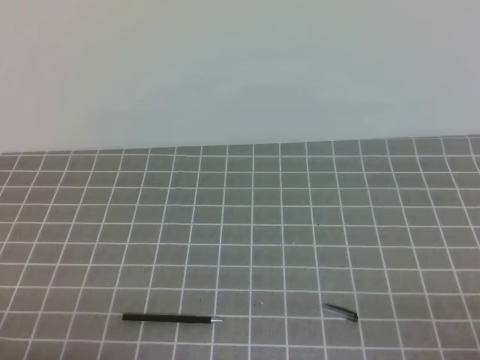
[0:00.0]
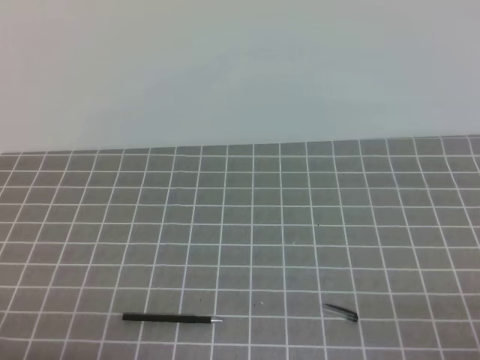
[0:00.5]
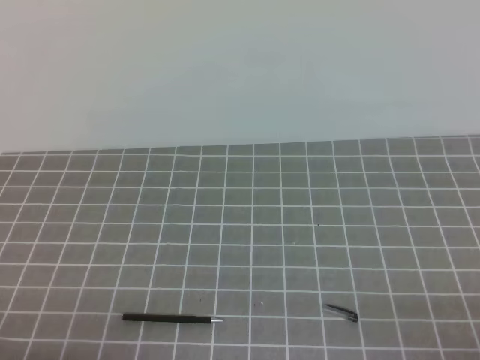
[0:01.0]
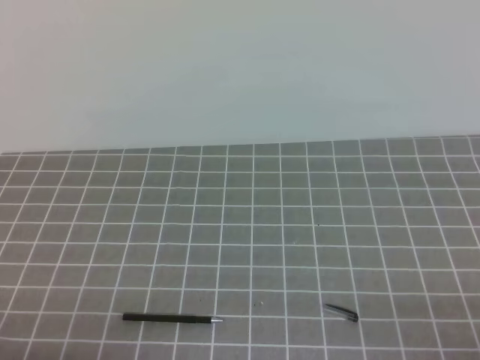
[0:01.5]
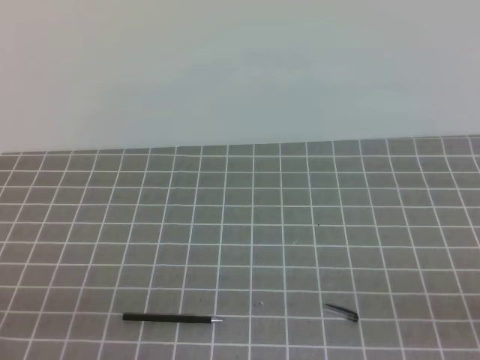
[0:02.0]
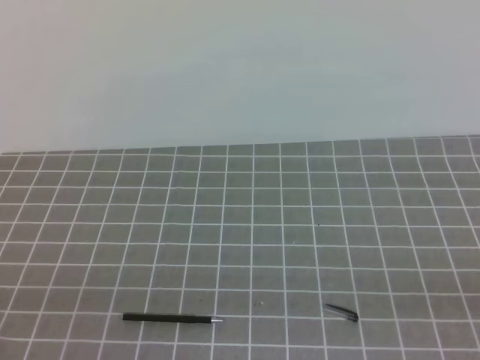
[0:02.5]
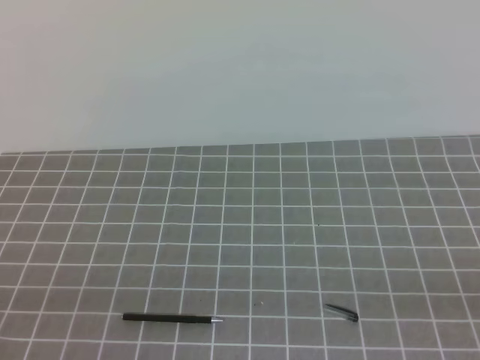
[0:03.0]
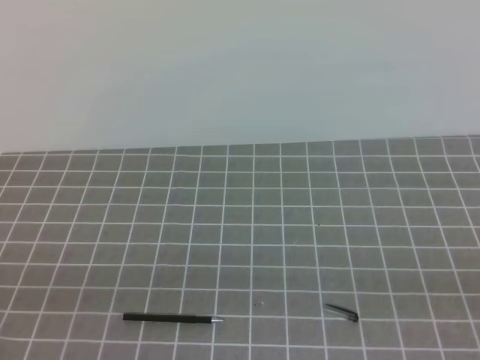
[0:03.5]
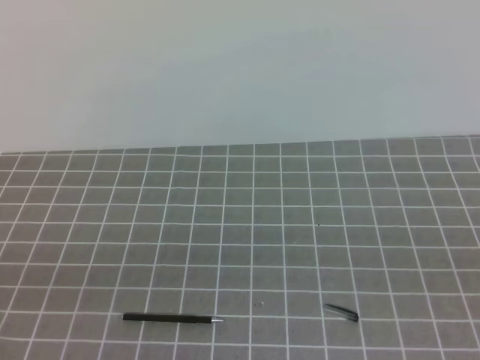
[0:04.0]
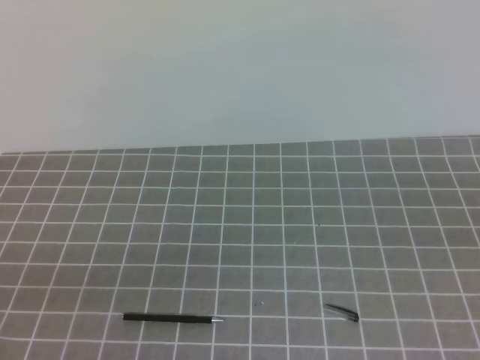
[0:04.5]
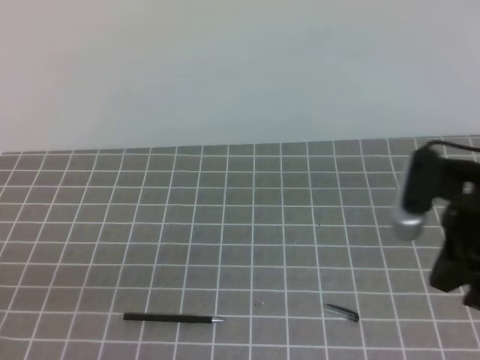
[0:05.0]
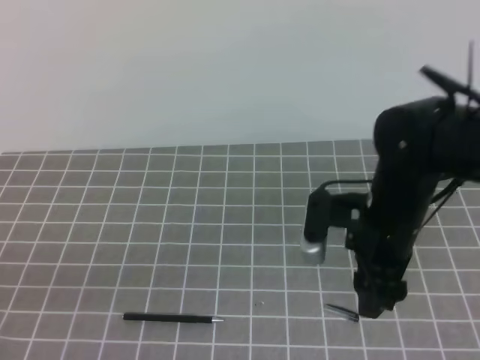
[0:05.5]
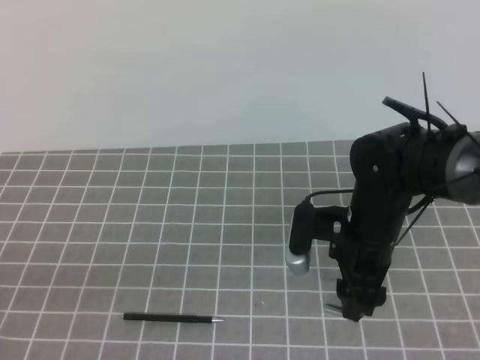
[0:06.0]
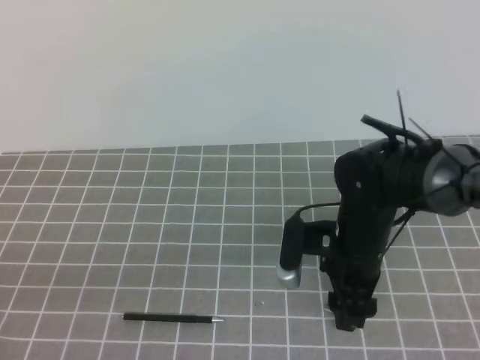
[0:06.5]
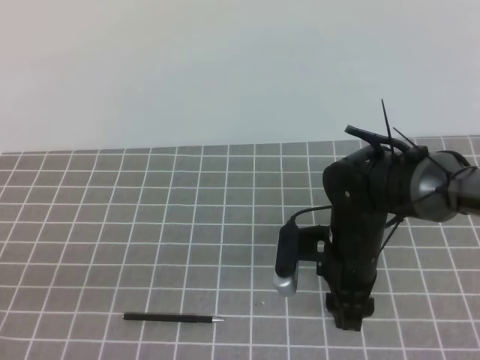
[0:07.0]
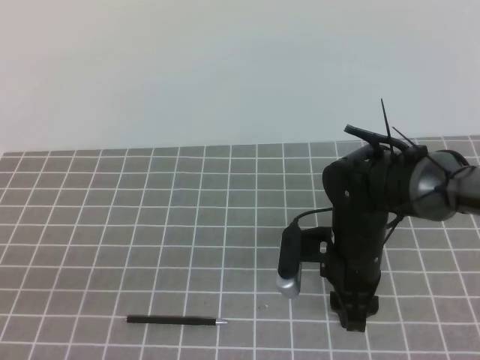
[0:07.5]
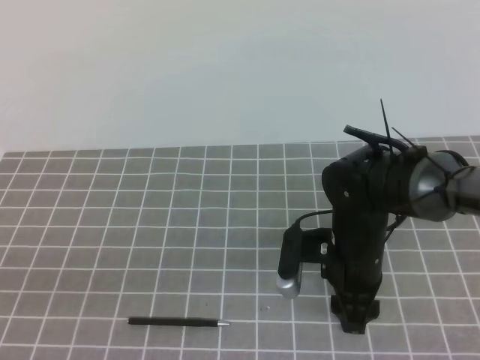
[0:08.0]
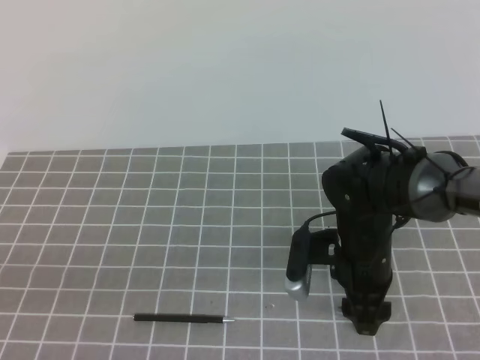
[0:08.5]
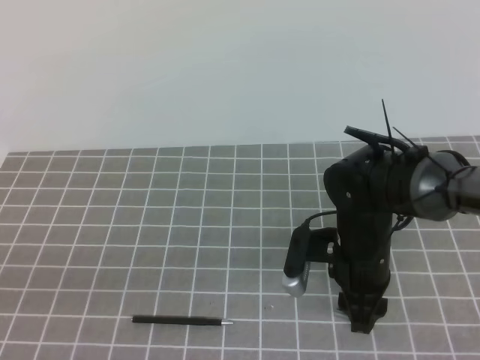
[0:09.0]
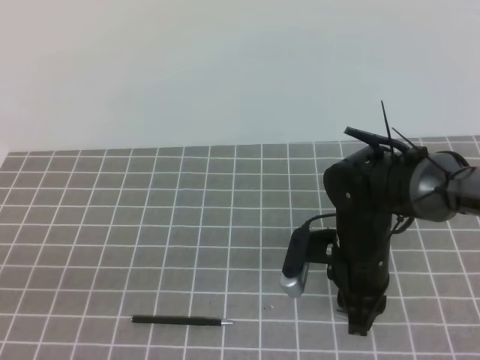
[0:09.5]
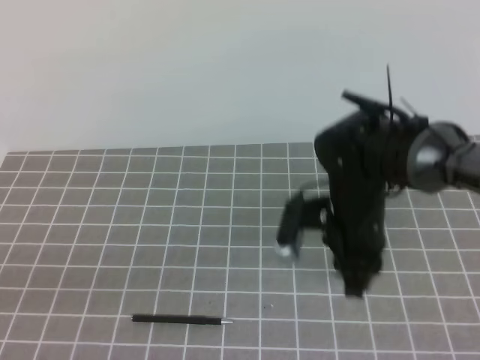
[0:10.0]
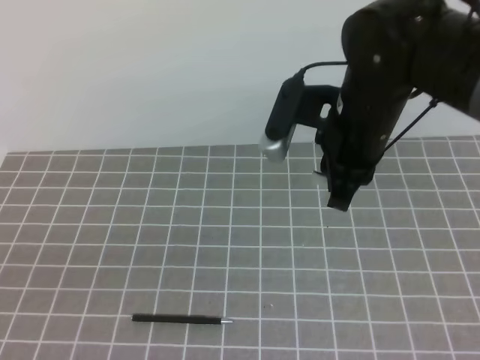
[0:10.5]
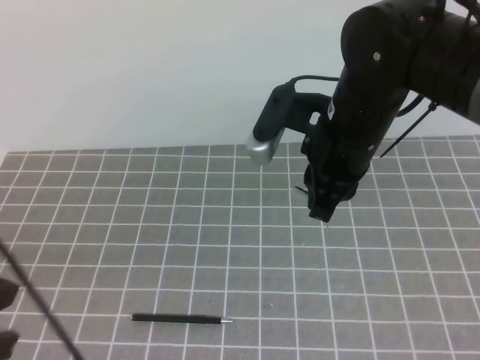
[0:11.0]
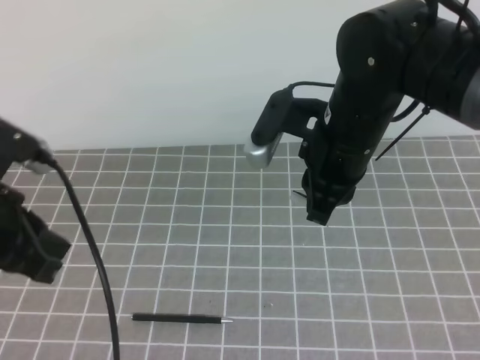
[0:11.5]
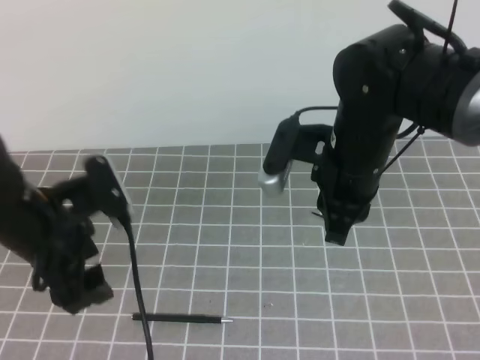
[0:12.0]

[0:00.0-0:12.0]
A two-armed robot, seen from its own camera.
Task of the whole recording: on the grey tablecloth, hold the pen cap in one hand and the pen in the other, then cover the pen cap.
0:04.0 to 0:06.0: The right gripper is displaced forward, to the left and downward by roughly 35 cm, and opens.
0:08.0 to 0:10.0: The right gripper closes up.
0:10.0 to 0:12.0: The left gripper moves forward and to the right, about 20 cm, and opens, while the right gripper travels upward by about 10 cm.

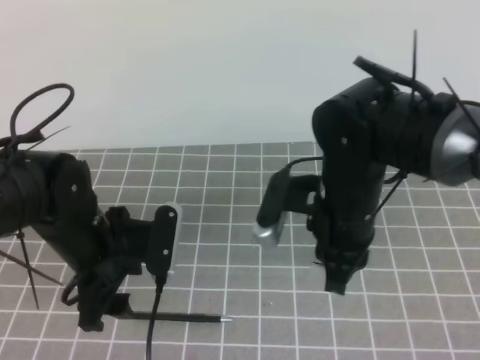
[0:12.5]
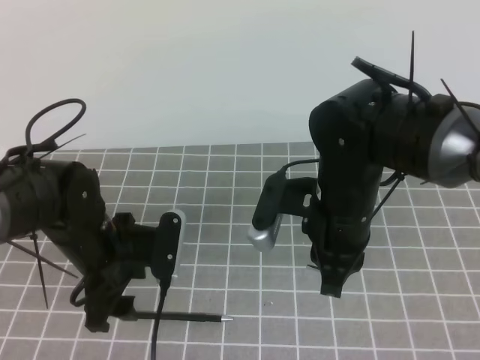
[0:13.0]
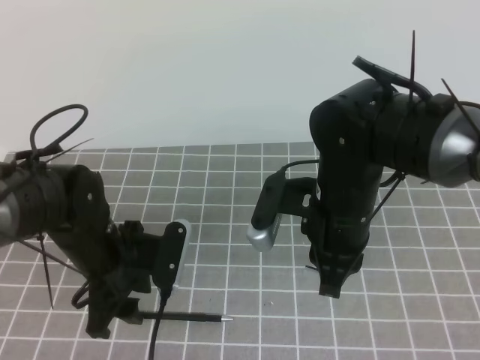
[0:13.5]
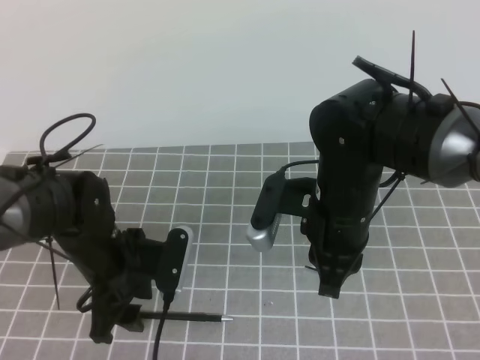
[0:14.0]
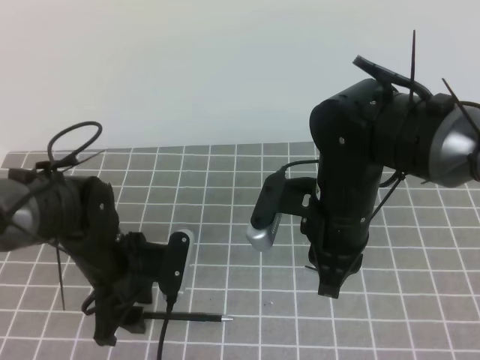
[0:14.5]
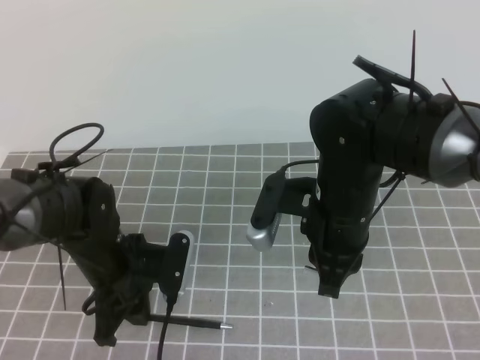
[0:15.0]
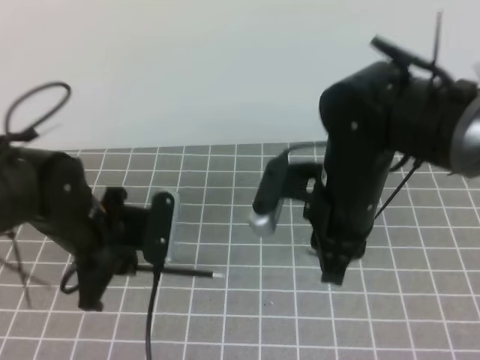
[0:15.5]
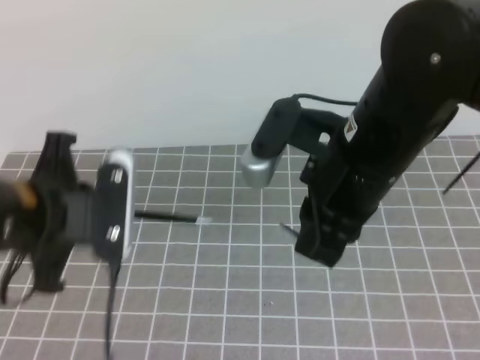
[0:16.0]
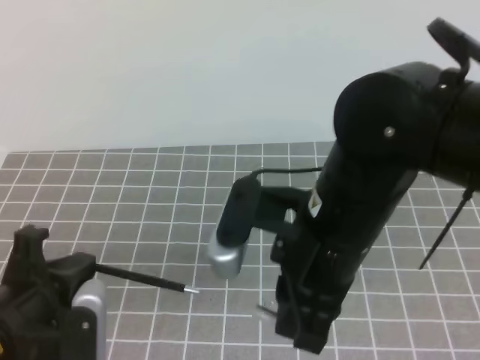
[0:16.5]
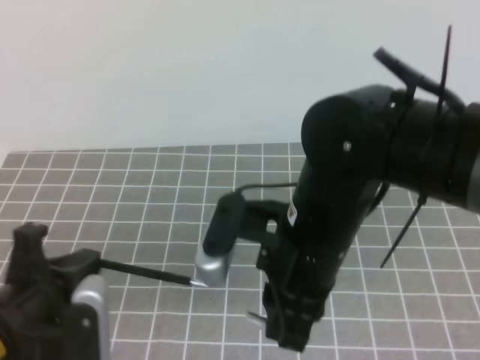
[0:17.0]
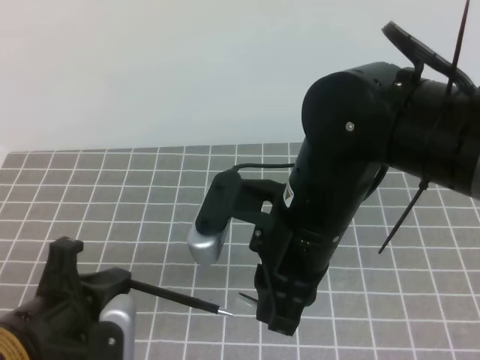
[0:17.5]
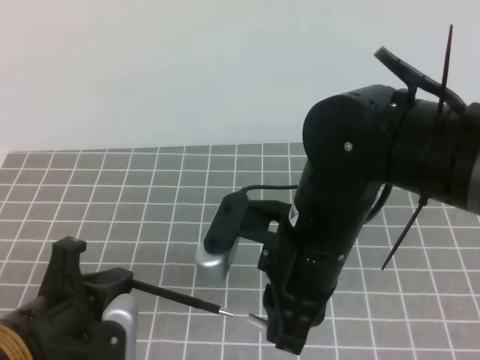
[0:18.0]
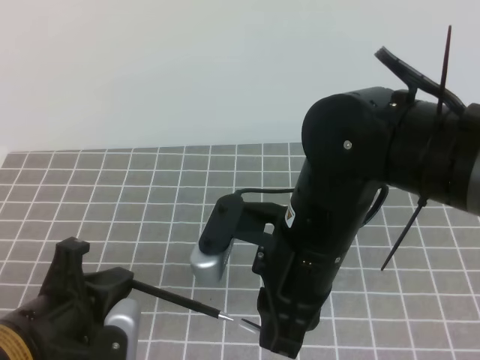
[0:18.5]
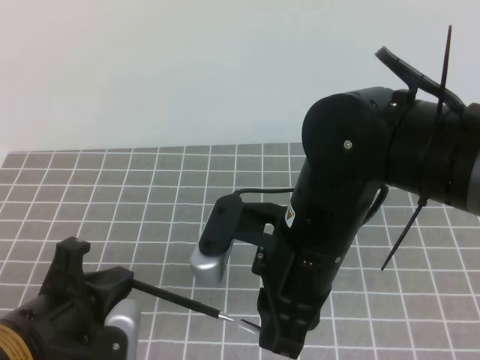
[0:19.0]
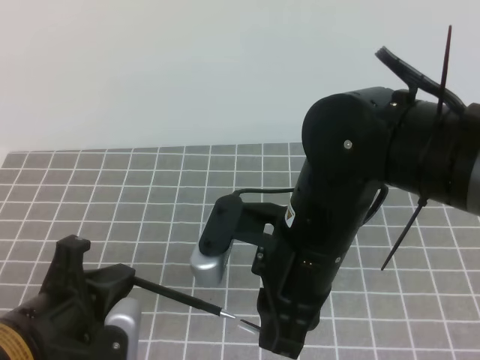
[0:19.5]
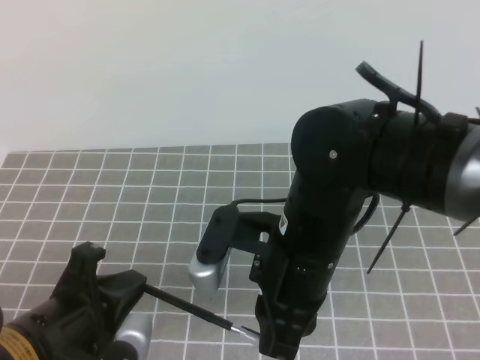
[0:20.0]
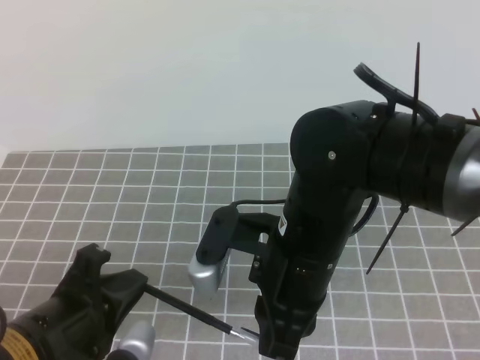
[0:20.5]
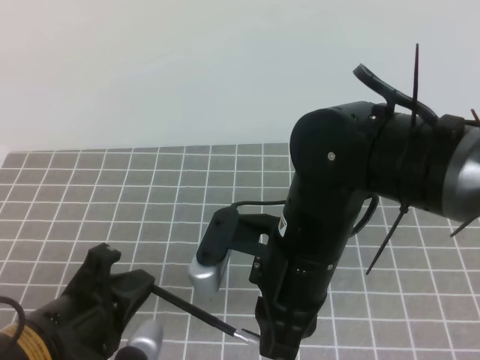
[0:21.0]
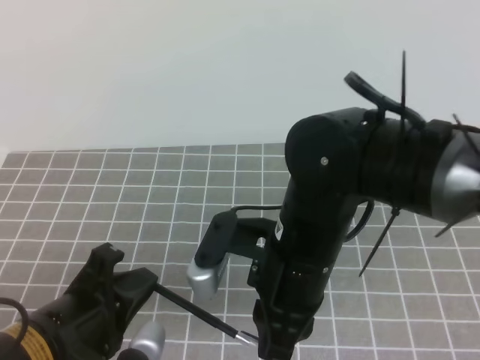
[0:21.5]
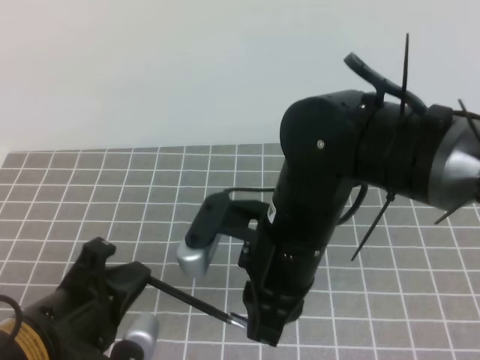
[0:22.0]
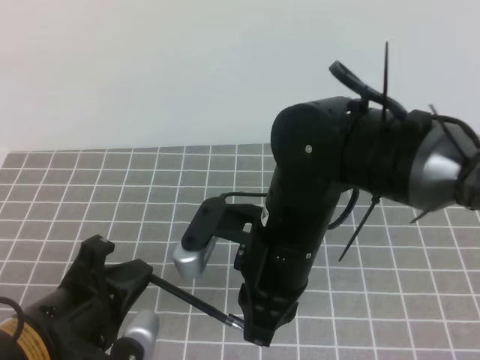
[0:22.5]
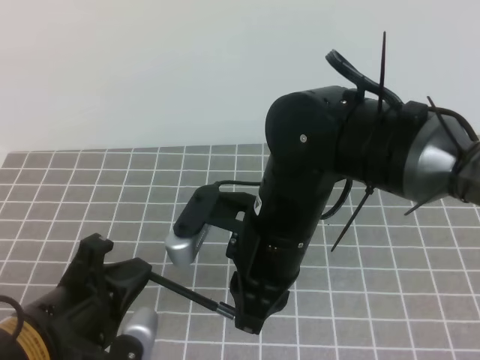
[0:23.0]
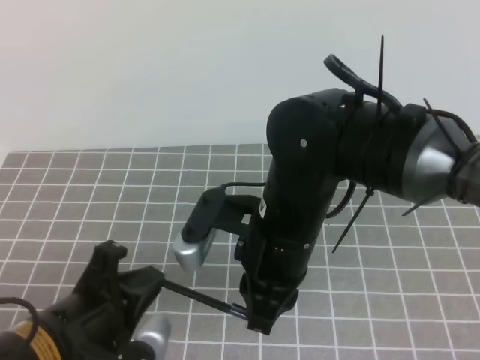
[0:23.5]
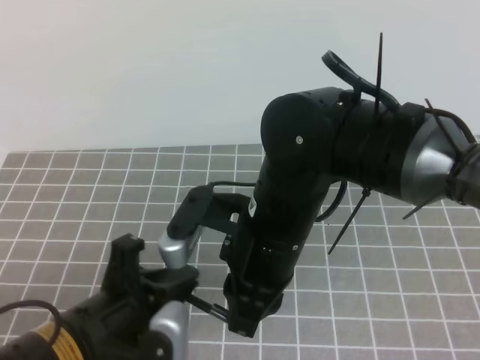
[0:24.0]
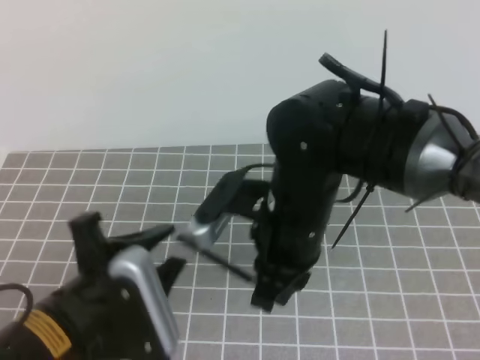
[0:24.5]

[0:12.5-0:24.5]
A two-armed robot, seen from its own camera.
Task of the whole recording: on the grey tablecloth, hold the pen cap in one hand and the pen in the other, then cover the pen cap.
0:12.5 to 0:14.5: The left gripper is displaced downward by roughly 5 cm.
0:14.5 to 0:16.5: The left gripper heads backward, upward and to the left, covering about 15 cm, and closes. The right gripper travels backward and upward by some 10 cm.
0:18.5 to 0:22.5: The grippers move only a little.
0:22.5 to 0:24.5: The left gripper opens its fingers.

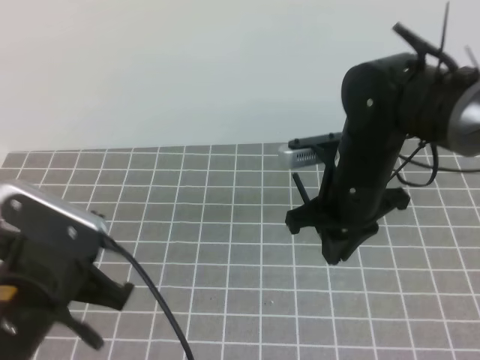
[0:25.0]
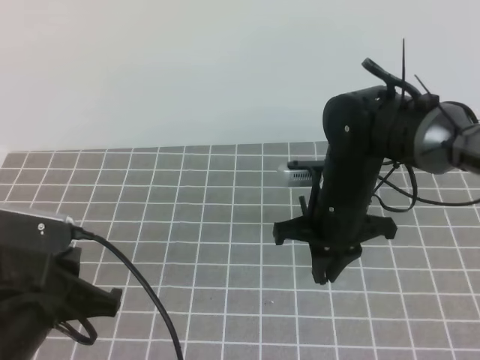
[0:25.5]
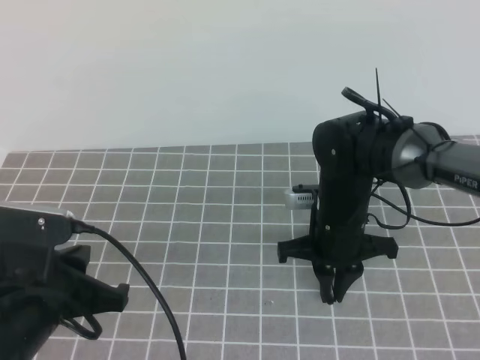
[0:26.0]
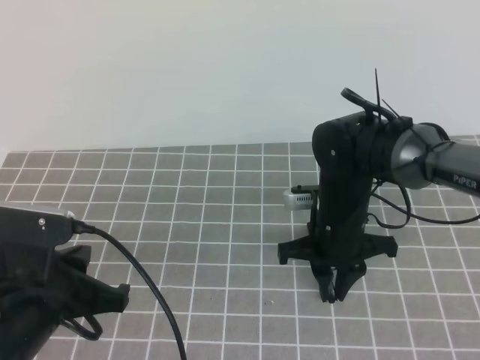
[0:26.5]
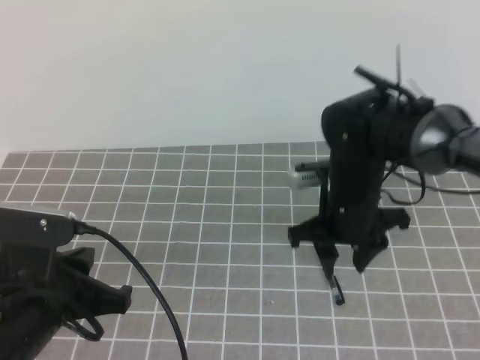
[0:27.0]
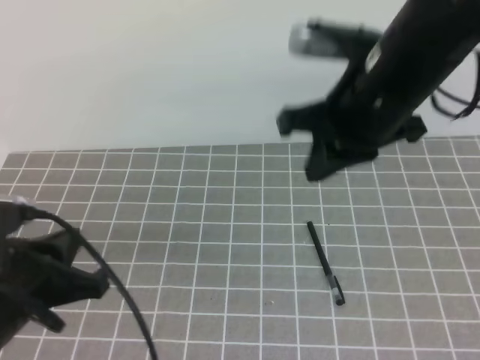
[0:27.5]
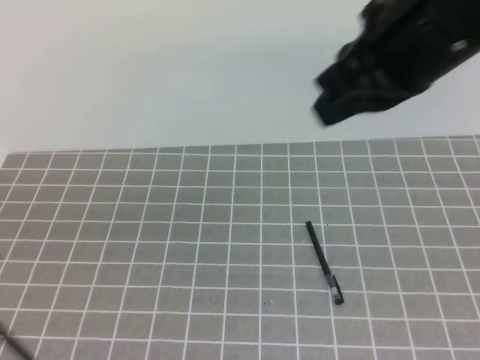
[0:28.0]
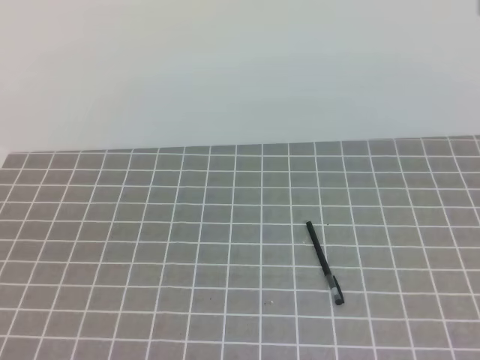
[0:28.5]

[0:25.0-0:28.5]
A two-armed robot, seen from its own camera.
Task of the whole recording: on the grey tablecloth, hold the pen cap in one hand and the pen in the other, then cover the pen cap.
0:25.0 to 0:27.0: The right gripper opens up.
0:27.0 to 0:28.5: The right gripper moves upward, backward and to the right, roughly 35 cm, and closes up. The left gripper goes roughly 15 cm backward, upward and to the left.
